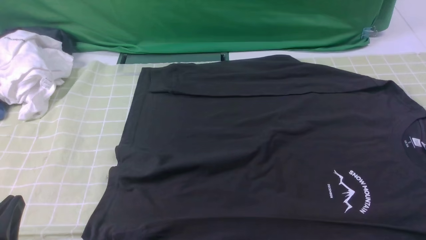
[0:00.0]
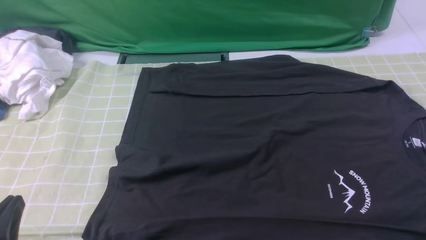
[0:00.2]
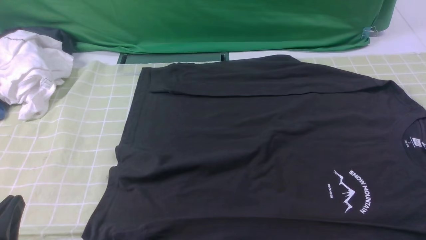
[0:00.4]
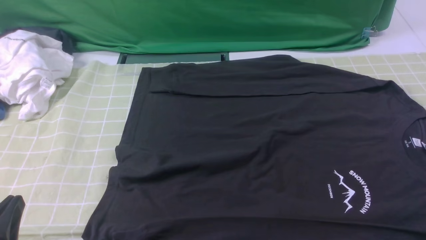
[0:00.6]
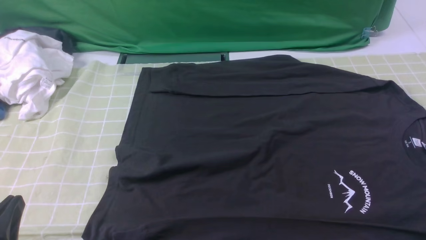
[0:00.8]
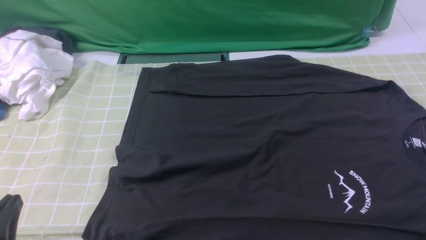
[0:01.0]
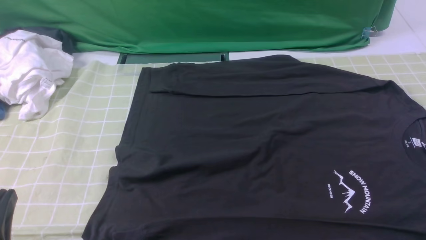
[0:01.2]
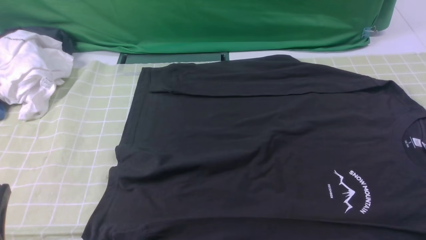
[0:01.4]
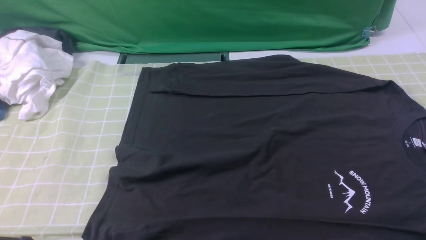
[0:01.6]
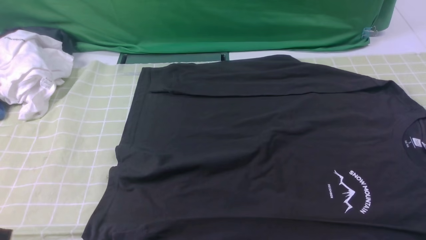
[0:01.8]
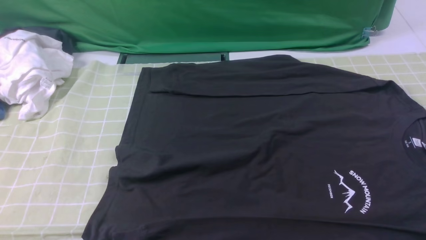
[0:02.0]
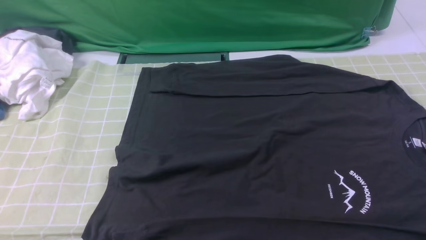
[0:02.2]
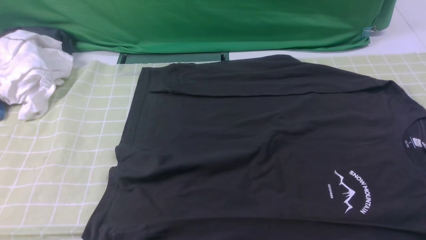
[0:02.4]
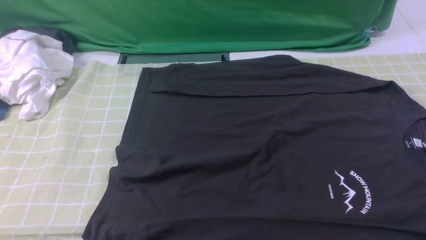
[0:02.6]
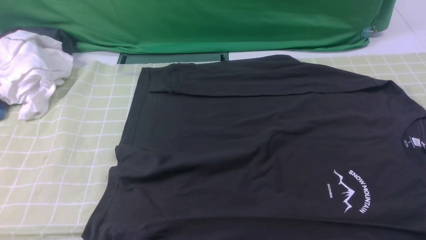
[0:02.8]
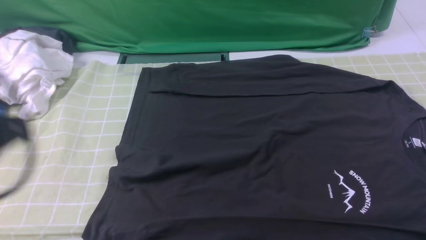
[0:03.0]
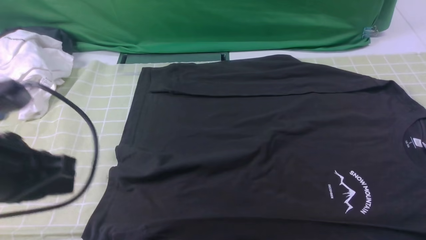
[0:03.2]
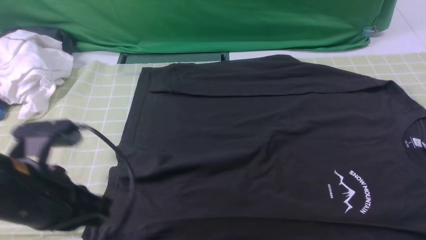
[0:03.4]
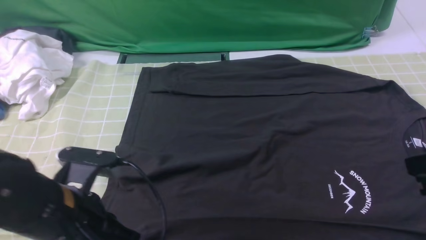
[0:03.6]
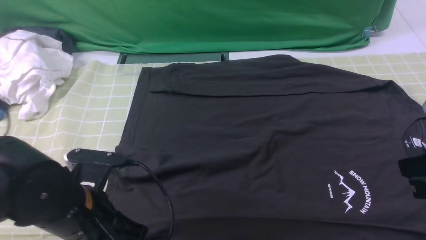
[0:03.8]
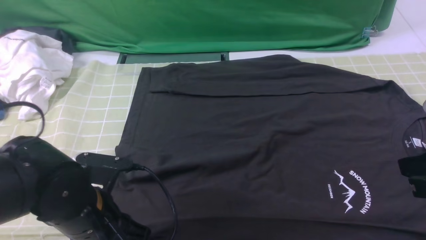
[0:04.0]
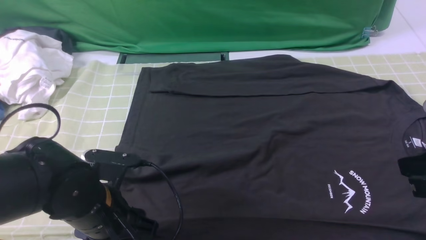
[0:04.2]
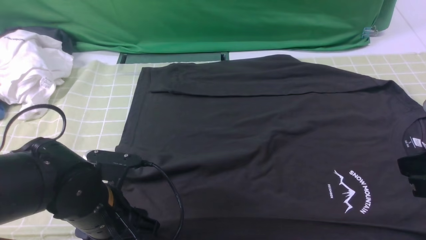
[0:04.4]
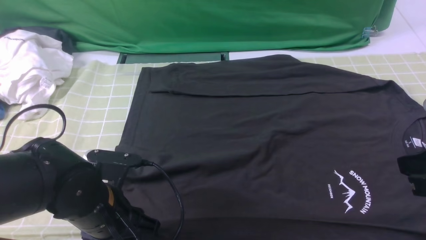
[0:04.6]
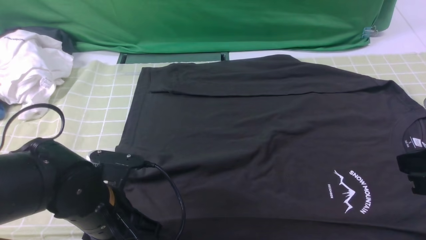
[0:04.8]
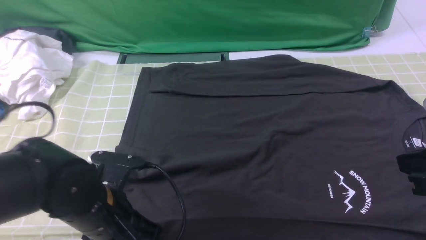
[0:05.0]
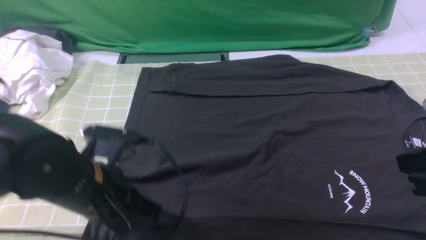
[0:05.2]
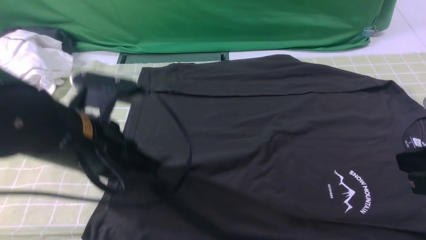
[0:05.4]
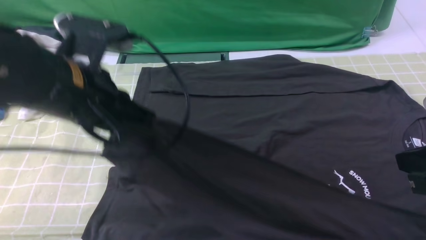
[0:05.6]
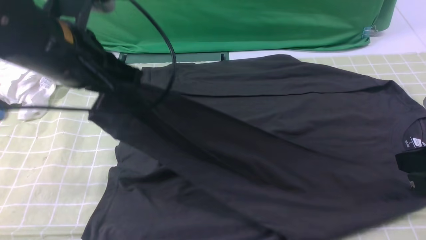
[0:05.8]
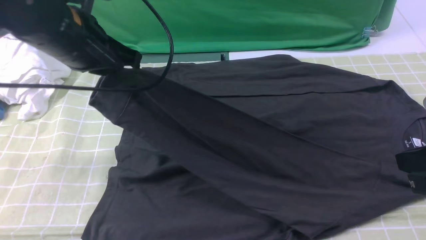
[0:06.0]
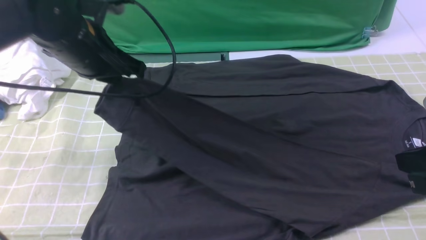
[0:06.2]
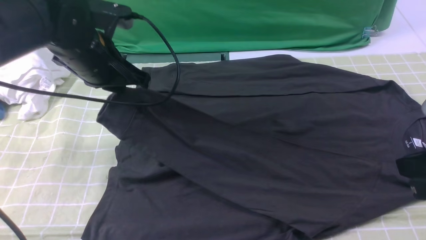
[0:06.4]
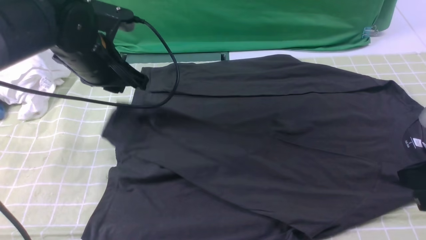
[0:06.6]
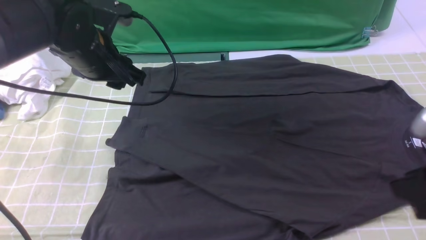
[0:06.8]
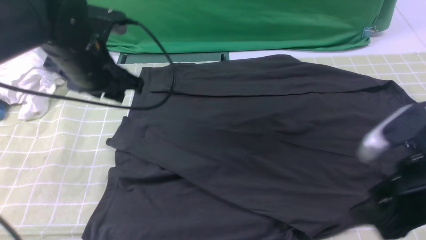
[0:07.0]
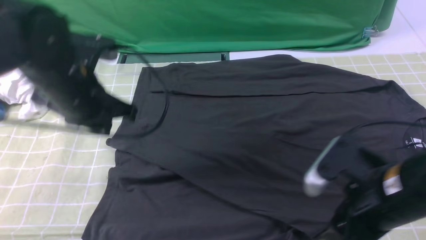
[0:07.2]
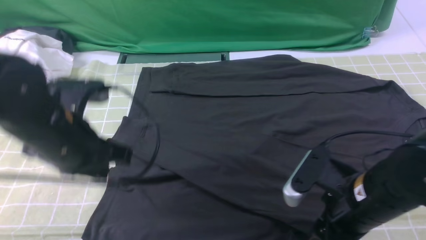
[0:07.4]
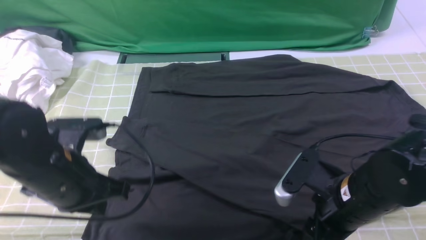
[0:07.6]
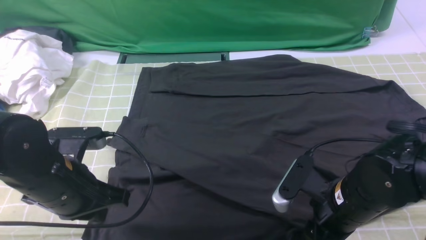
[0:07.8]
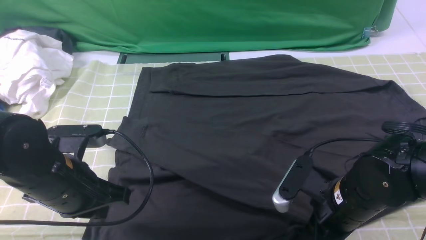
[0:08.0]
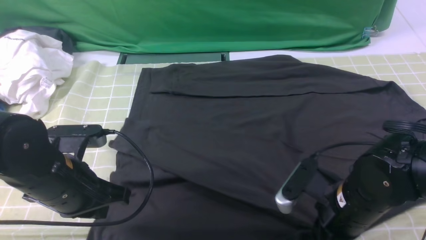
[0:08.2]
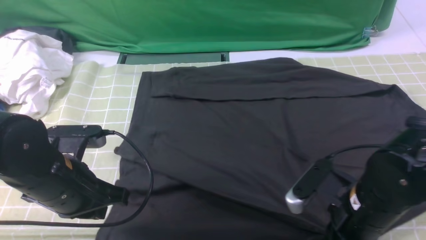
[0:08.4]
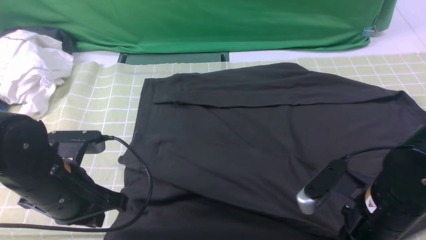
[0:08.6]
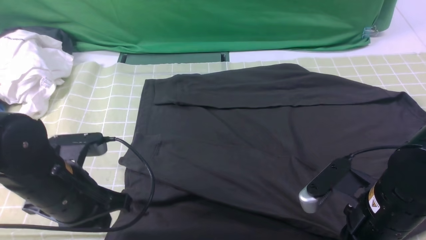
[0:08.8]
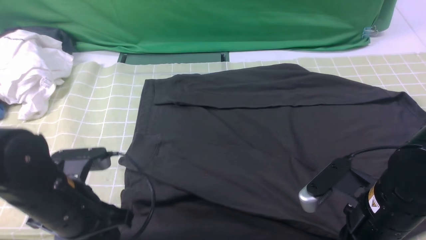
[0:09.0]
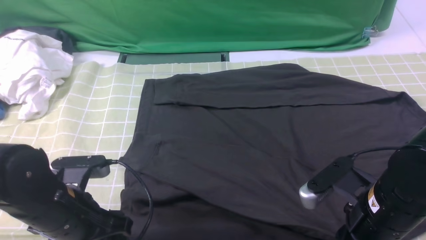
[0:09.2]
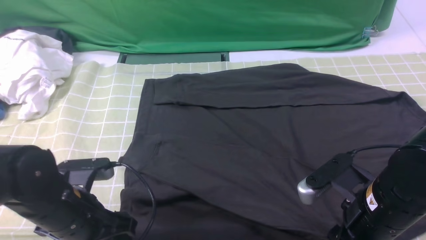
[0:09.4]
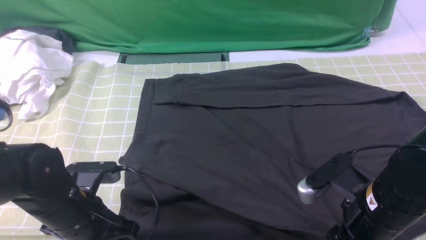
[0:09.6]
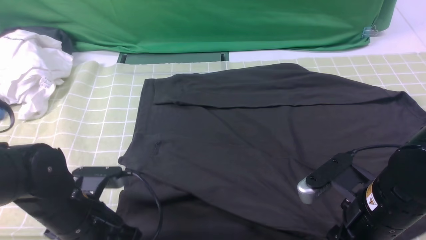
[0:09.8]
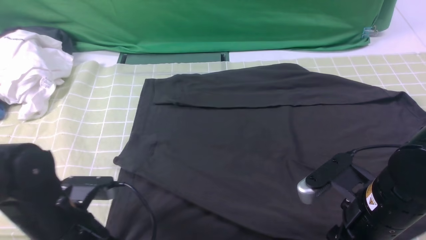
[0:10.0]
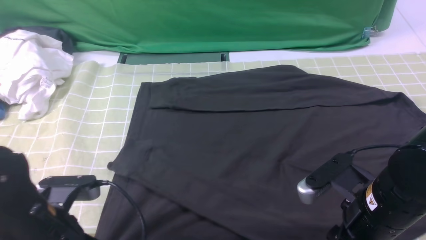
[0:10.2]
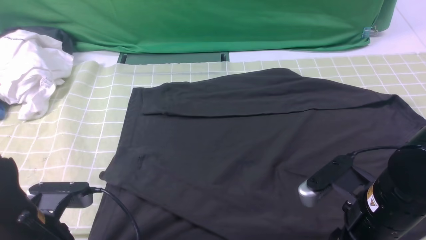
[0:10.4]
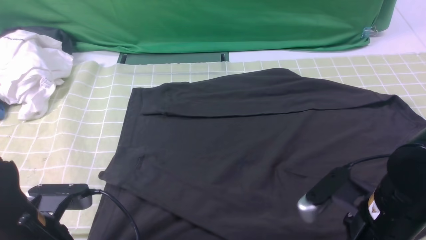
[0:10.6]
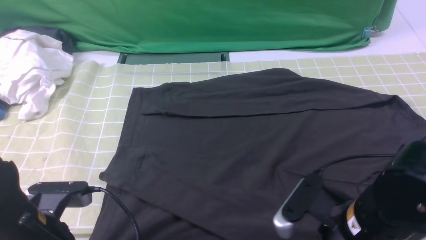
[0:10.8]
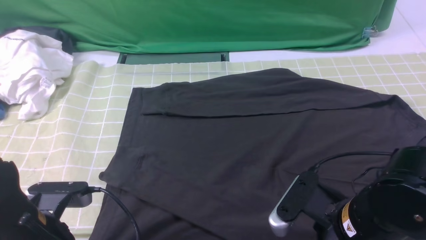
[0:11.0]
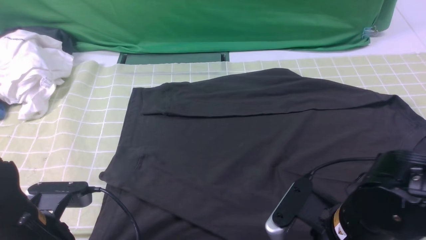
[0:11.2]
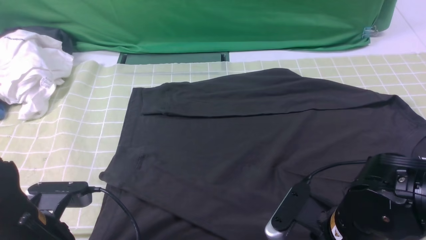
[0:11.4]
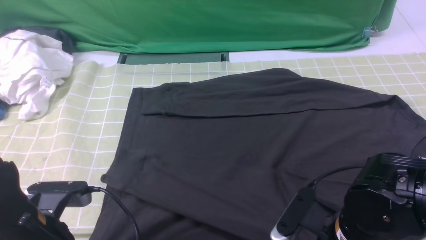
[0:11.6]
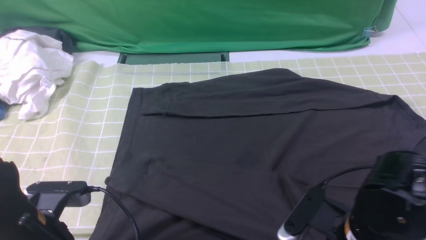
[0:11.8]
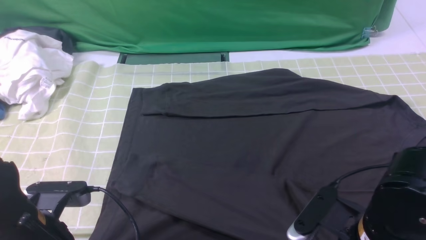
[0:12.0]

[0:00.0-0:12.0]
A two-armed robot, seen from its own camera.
Step, 0:00.0 to 0:04.8: use the left arm to clamp the cuff closest to it.
Step, 0:05.0 to 0:06.8: use the left arm to drag and place the cuff at the centered position on the left edge of the fabric.
0:00.0 to 0:01.6: The grippers stay close to where they were, moving slightly.
0:01.6 to 0:03.0: The left gripper is displaced upward and forward by about 15 cm.
0:03.0 to 0:04.4: The right gripper travels downward and forward by approximately 10 cm, while the left gripper travels downward and to the right by some 20 cm, and opens.
0:04.4 to 0:06.0: The left gripper moves upward and forward, approximately 20 cm, and closes up.
0:06.0 to 0:07.6: The right gripper heads downward and to the left, covering approximately 15 cm, and opens. The left gripper shifts some 15 cm downward and backward, and opens, then closes again.
0:07.6 to 0:09.0: The right gripper closes up, while the left gripper opens up.
0:09.0 to 0:10.4: The left gripper shifts roughly 5 cm backward, and closes up; the right gripper opens its fingers.
0:10.4 to 0:12.0: The right gripper closes.

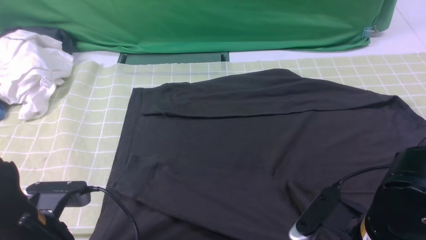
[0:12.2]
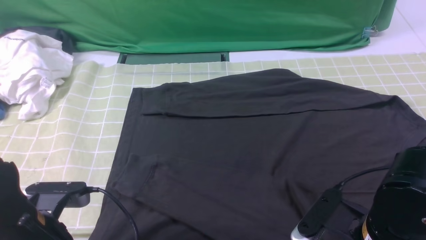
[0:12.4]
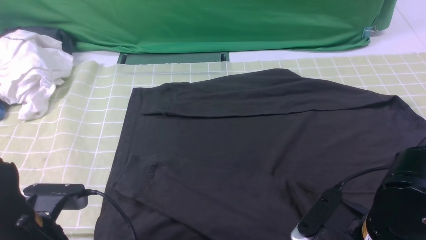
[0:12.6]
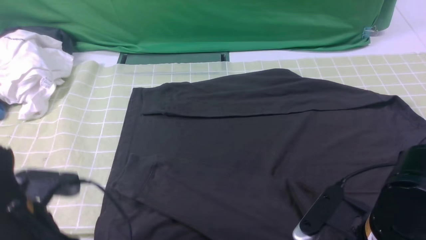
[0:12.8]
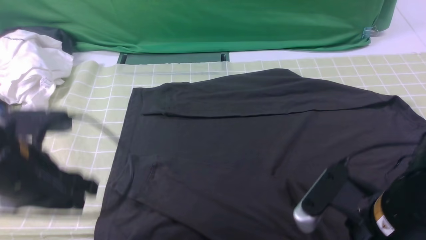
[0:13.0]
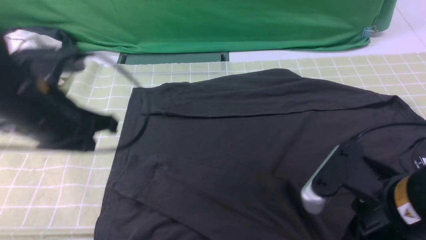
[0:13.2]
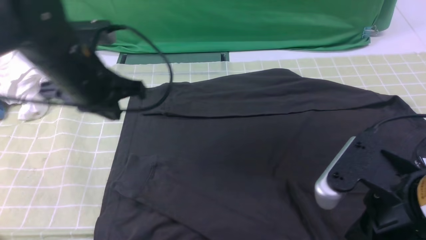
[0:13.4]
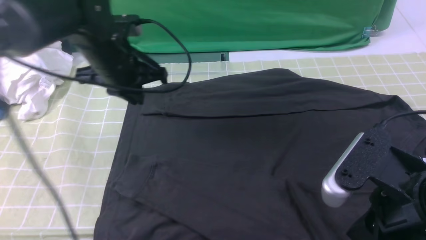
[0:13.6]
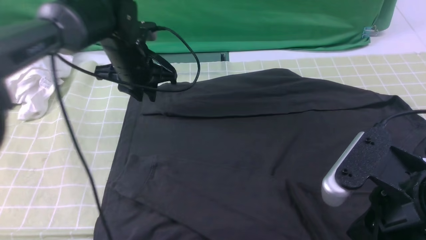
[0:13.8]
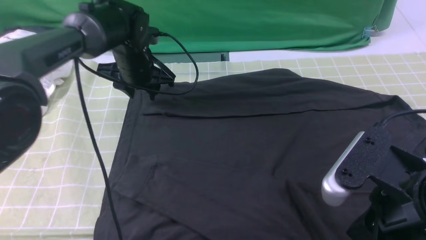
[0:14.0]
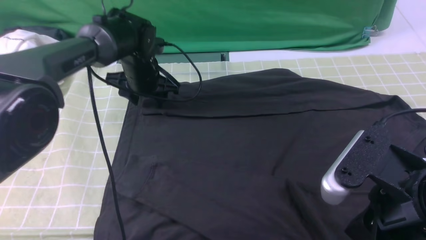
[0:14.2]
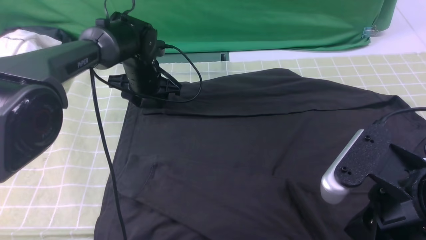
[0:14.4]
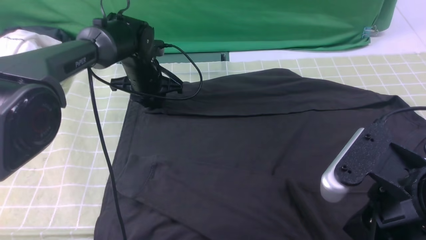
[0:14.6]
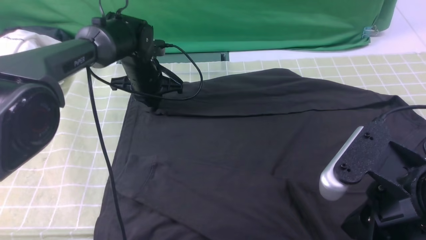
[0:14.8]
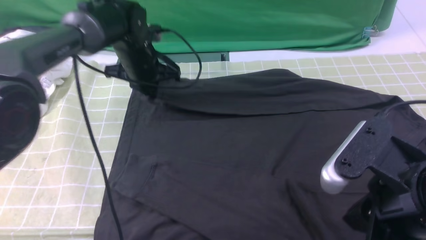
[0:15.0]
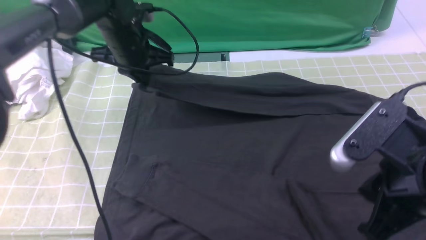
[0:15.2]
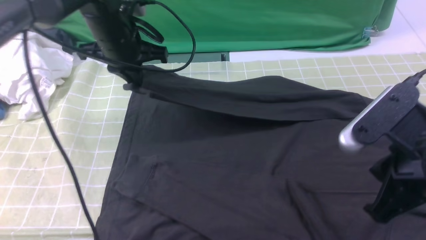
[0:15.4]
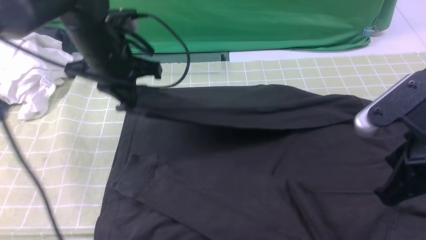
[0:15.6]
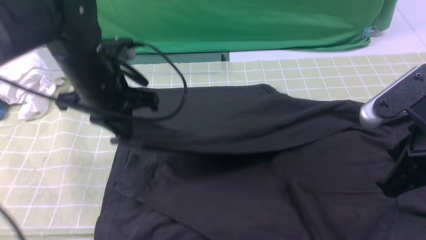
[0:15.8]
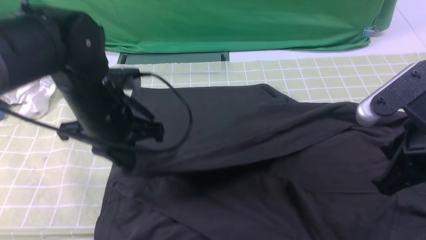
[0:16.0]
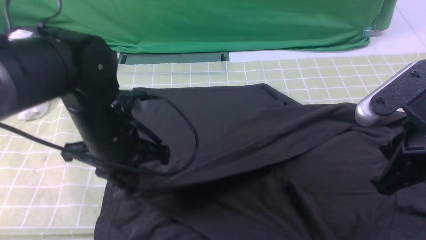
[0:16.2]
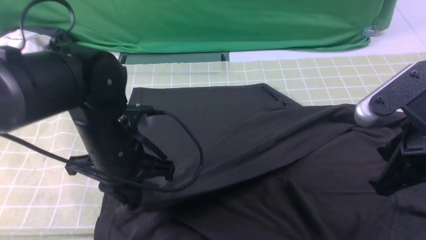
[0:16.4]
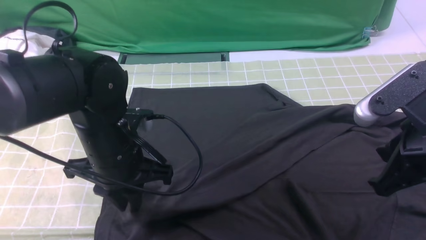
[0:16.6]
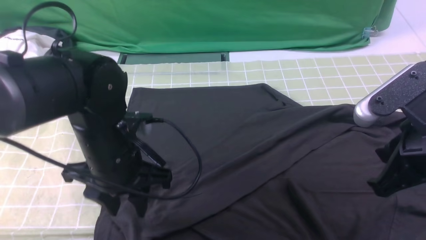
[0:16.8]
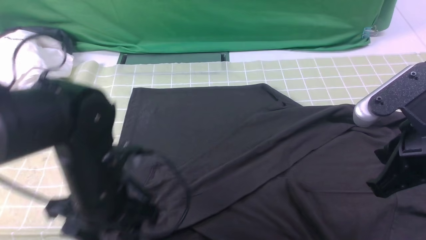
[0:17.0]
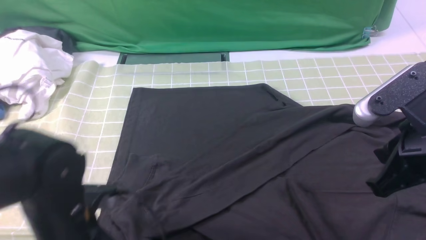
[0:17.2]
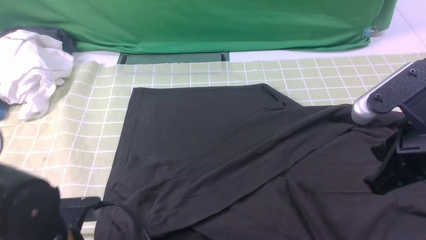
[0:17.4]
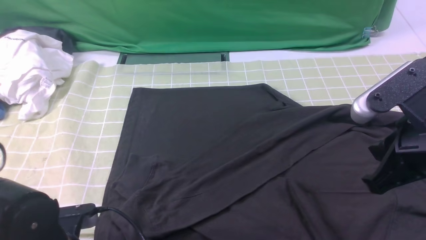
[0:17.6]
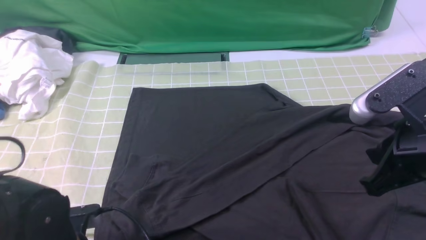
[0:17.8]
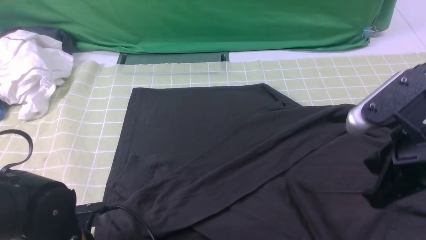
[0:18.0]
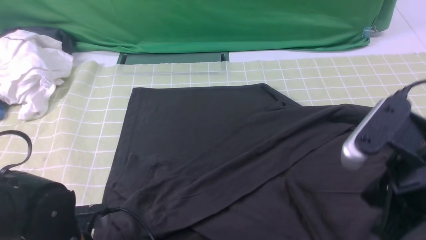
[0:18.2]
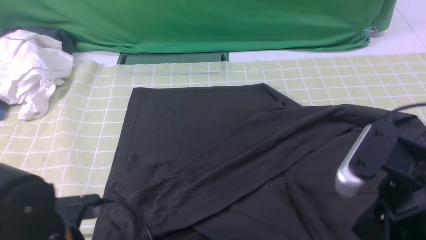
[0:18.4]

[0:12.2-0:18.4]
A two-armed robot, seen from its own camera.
Step, 0:12.2 to 0:14.8: use the left arm to clamp the cuff farthest from it.
Step, 0:15.0 to 0:16.6: use the left arm to drag and drop the cuff onto the cuff closest to the left arm.
0:12.2 to 0:13.8: The left gripper heads forward, covering approximately 30 cm, and opens up. Meanwhile the right gripper shifts approximately 10 cm upward, and opens and closes again.
0:13.8 to 0:15.4: The left gripper goes about 5 cm upward, and closes its fingers.
0:15.4 to 0:16.8: The left gripper heads backward, covering roughly 15 cm, and opens its fingers.
0:16.8 to 0:18.4: The right gripper moves approximately 5 cm. The left gripper shifts roughly 10 cm backward, and closes its fingers.
